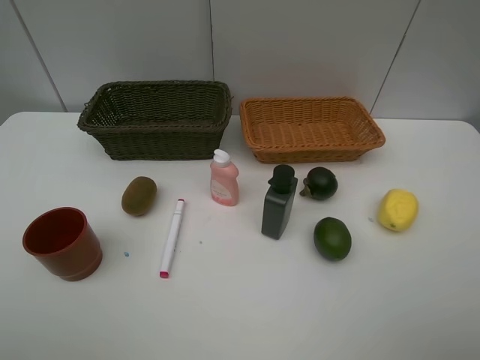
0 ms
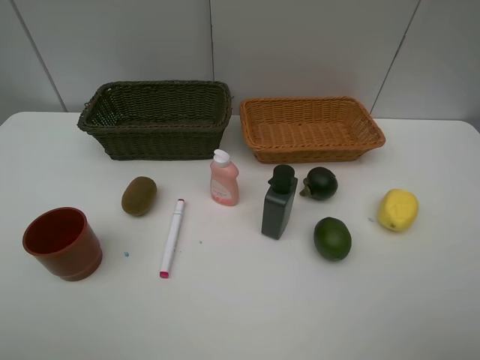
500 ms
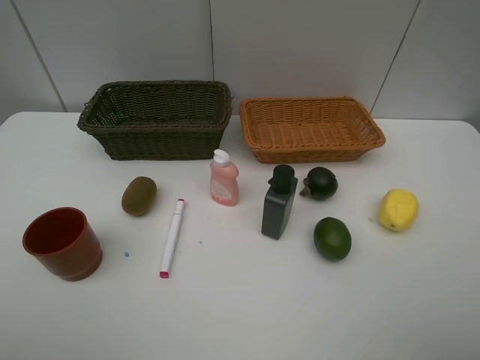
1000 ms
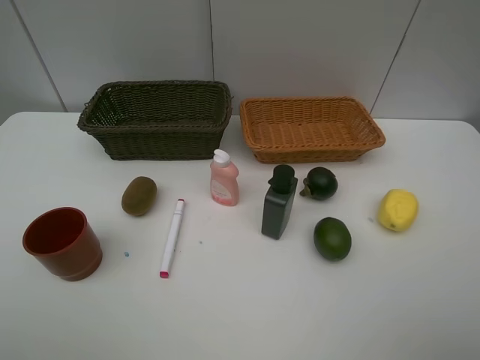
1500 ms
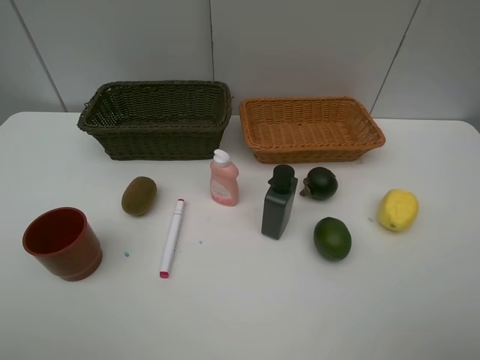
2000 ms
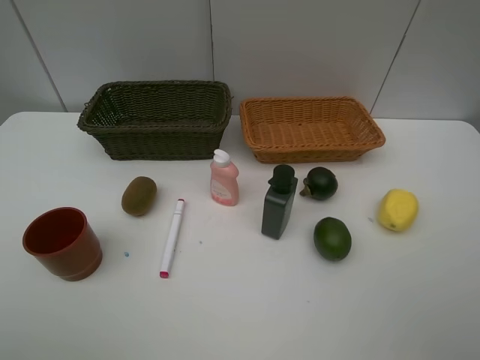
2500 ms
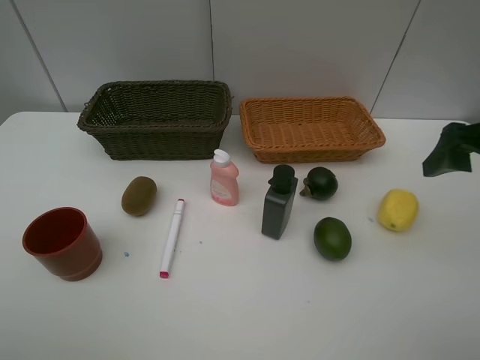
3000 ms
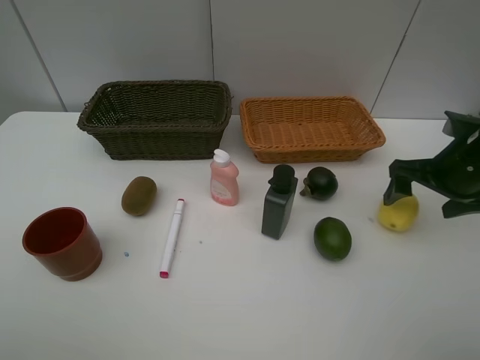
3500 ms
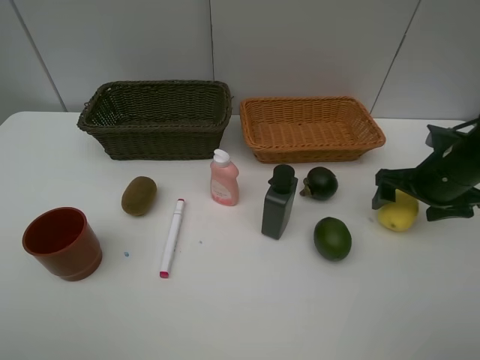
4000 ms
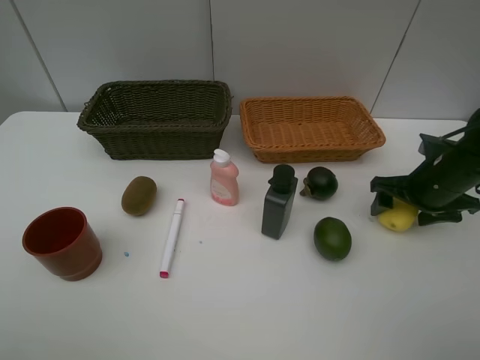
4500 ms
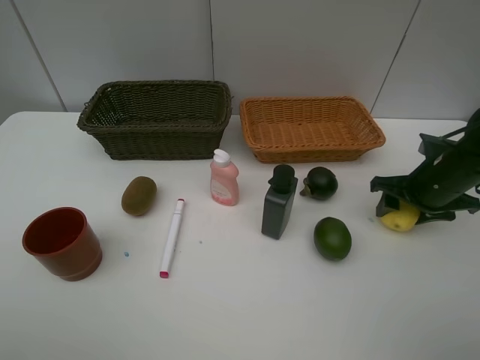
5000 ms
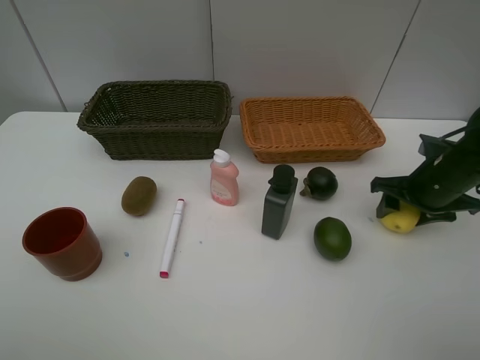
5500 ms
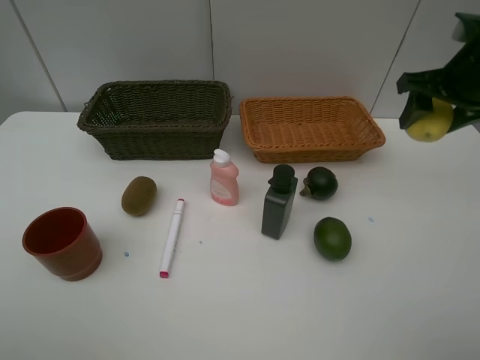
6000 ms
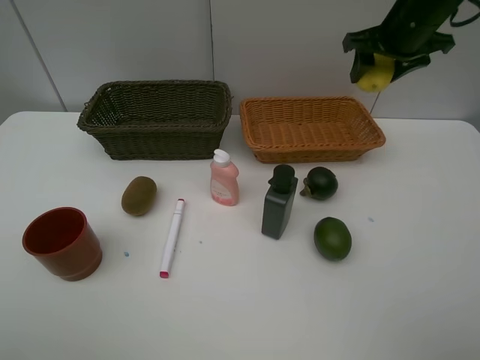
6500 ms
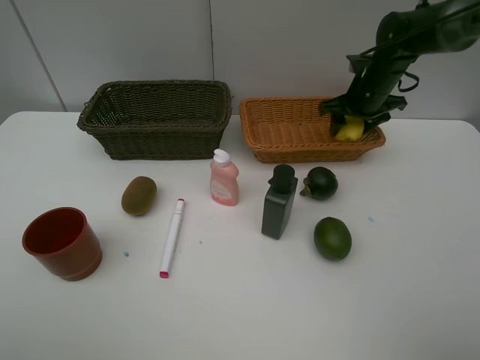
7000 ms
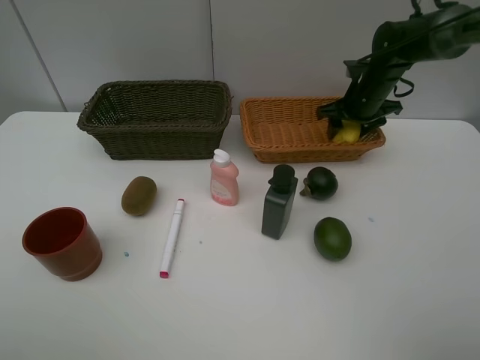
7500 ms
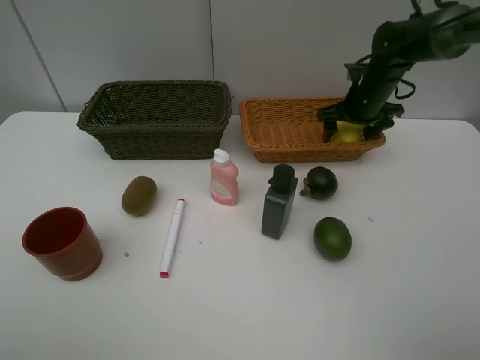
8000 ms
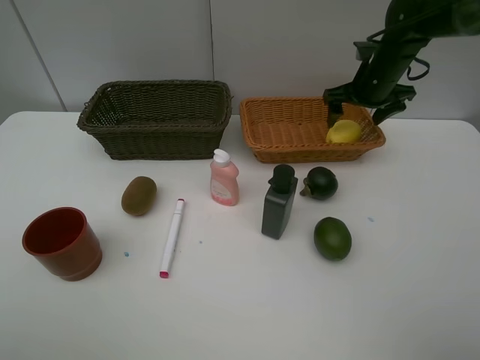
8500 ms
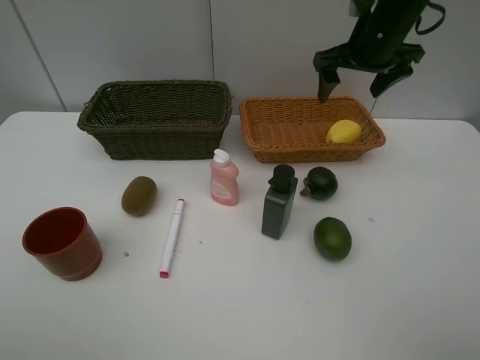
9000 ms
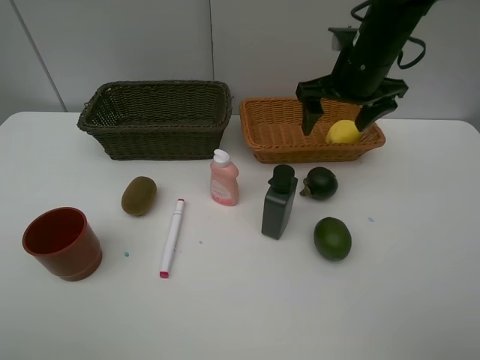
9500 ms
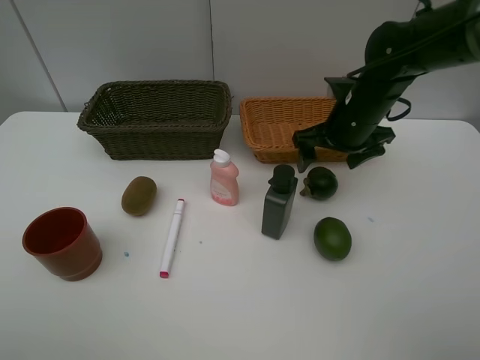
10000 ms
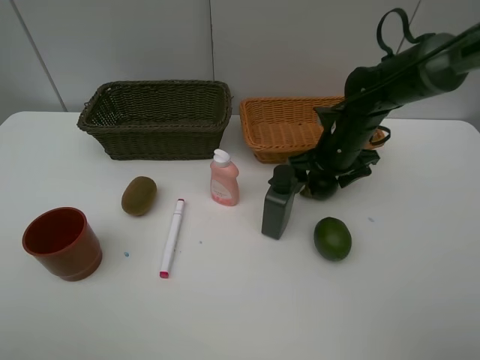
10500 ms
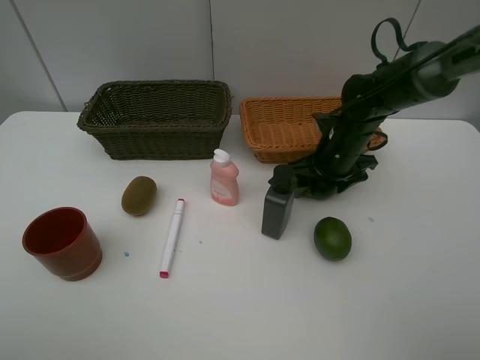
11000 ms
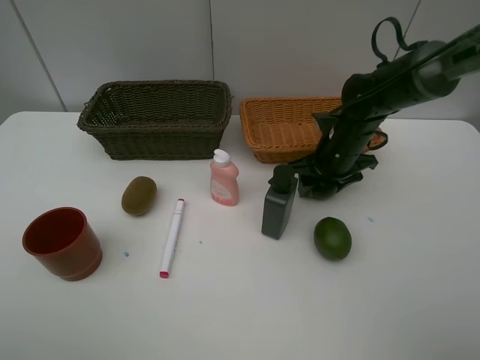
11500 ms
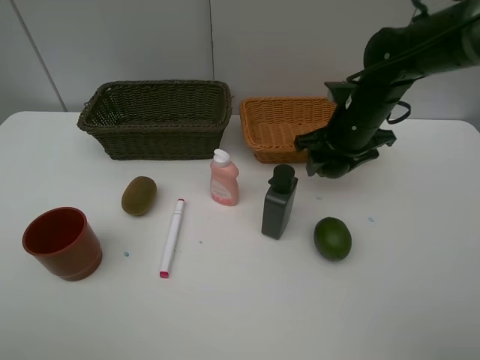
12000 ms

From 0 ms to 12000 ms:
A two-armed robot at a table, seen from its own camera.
Task of the whole recording: Place multiple objects separately in different baskets.
Step, from 0 ms to 5500 ms: Pick up the lemon with right gripper.
Step, from 6000 ms to 8500 ms: Place the lemon in the light basket with right gripper.
Step, from 9000 ms to 11500 ms: Pick up the mangosteen with right gripper.
From 0 ms to 2000 ms: The two grippers keep their place.
From 2000 ms to 4000 ms: The right gripper is displaced forward and downward by approximately 35 cm.
From 4000 ms to 6000 ms: The right gripper travels upward by about 15 cm, and closes.
From 6000 ms to 8000 ms: The right gripper shifts some 20 cm forward and downward, and opens its fingers.
From 8000 ms to 10000 ms: The right gripper heads backward and to the left, covering about 15 cm, and reaches approximately 15 cm upward, then returns.
From 10000 ms to 12000 ms: The right gripper travels downward and back again, roughly 5 cm each way, and closes its fingers.

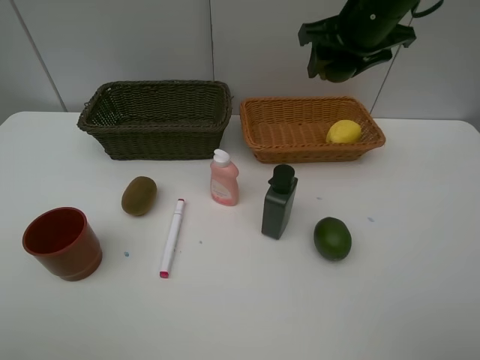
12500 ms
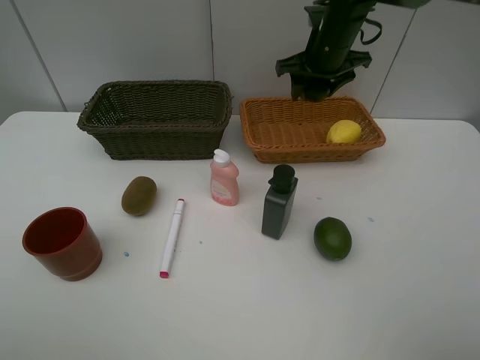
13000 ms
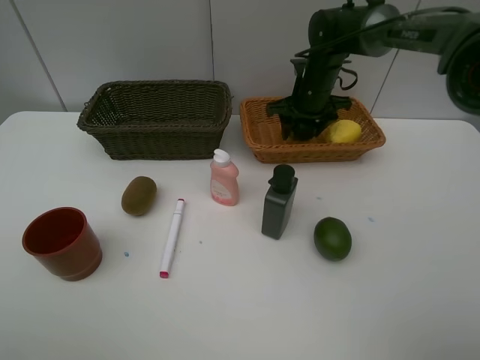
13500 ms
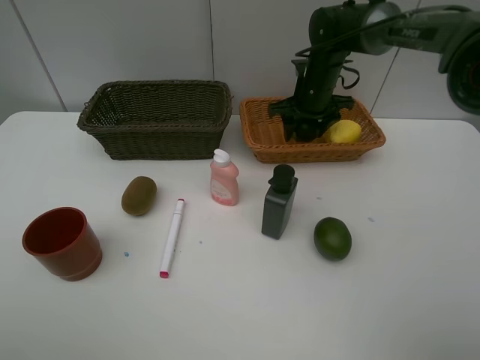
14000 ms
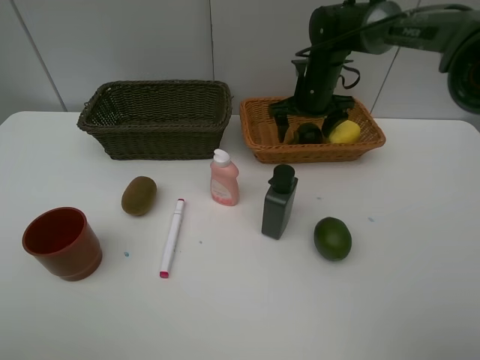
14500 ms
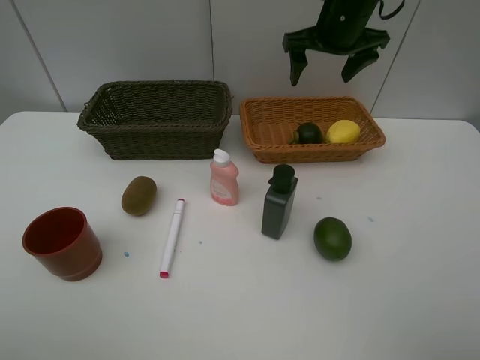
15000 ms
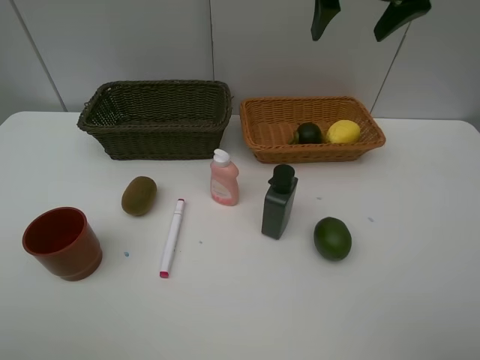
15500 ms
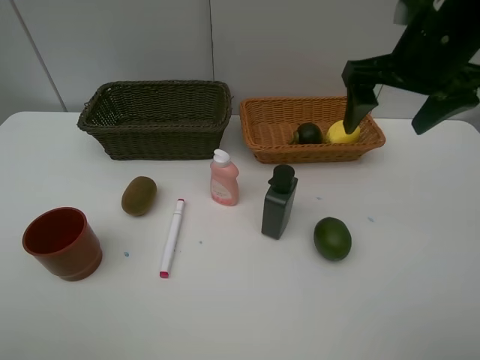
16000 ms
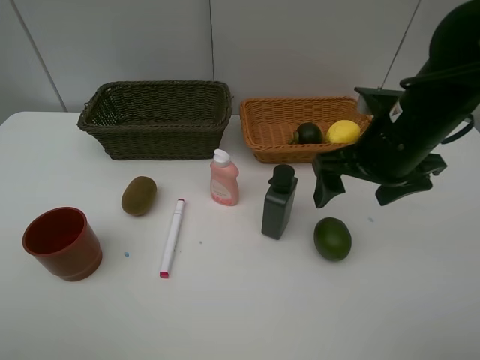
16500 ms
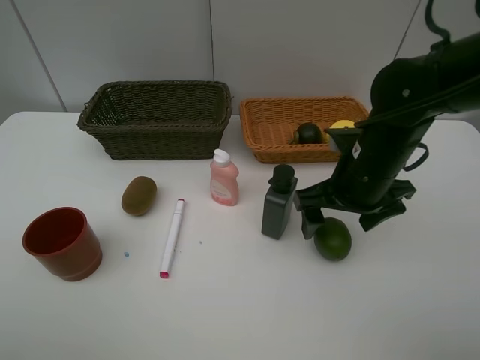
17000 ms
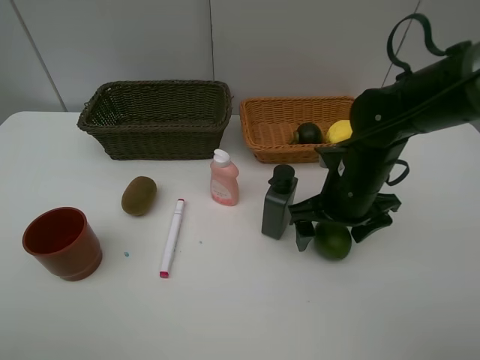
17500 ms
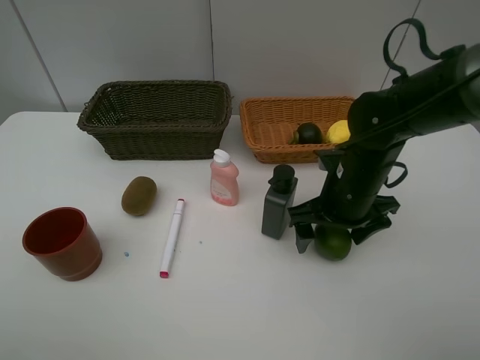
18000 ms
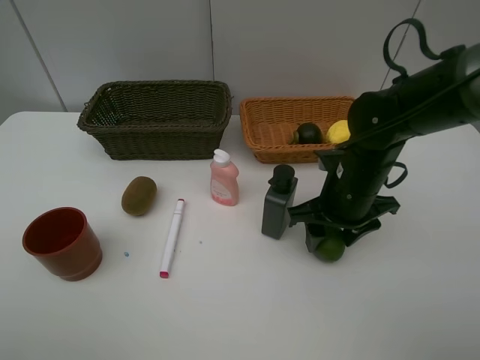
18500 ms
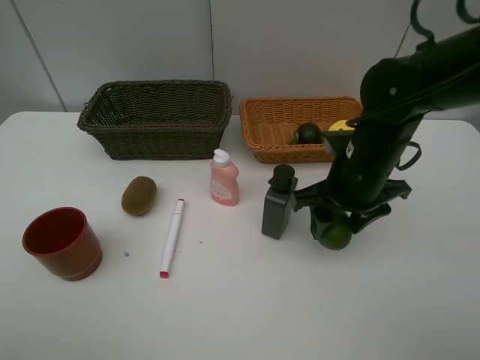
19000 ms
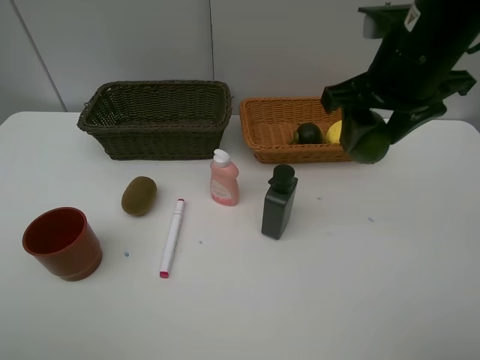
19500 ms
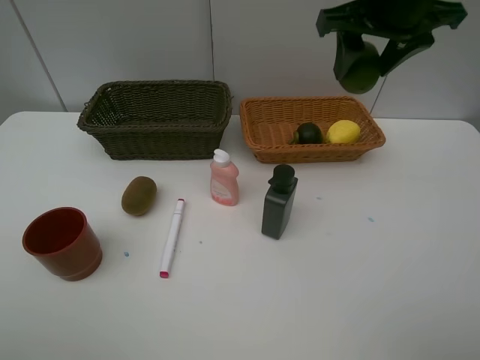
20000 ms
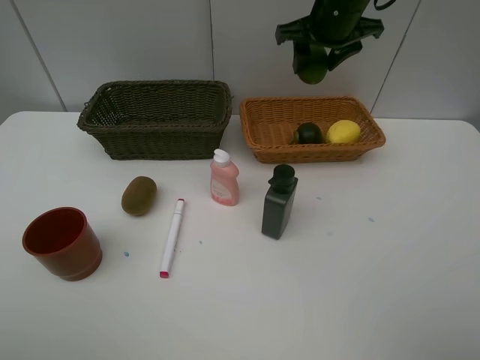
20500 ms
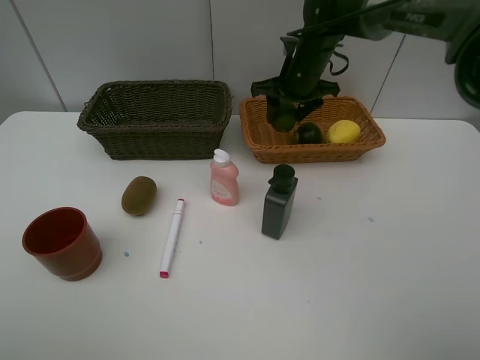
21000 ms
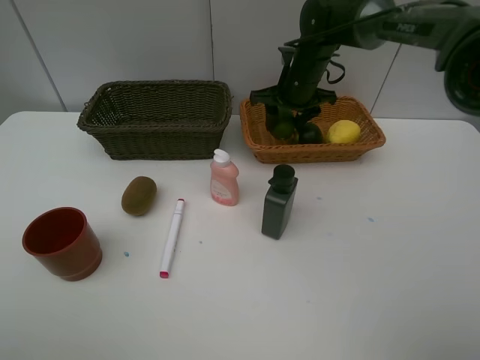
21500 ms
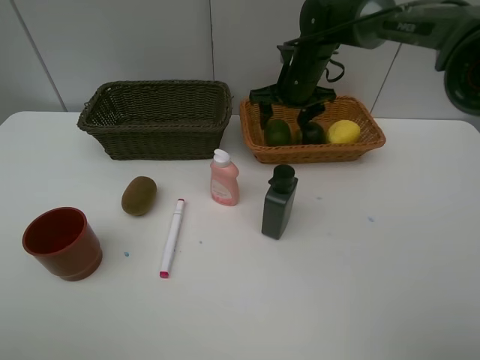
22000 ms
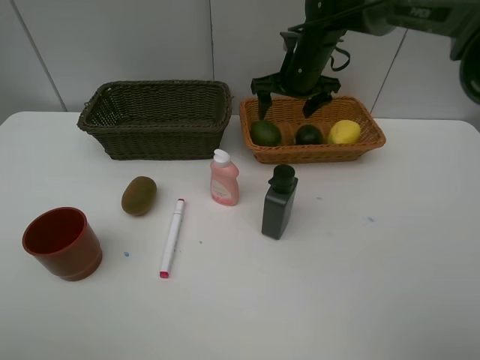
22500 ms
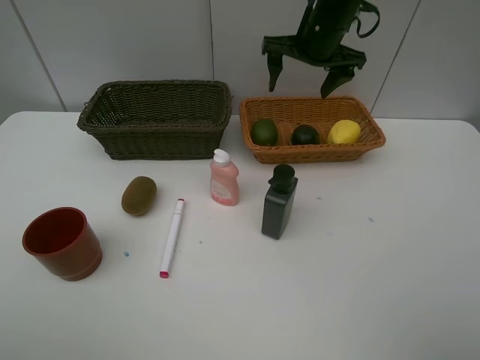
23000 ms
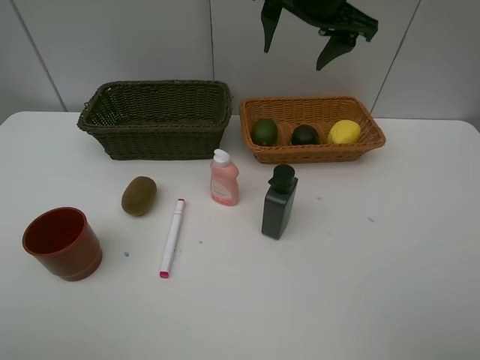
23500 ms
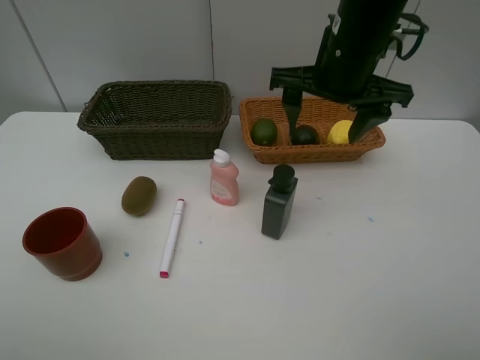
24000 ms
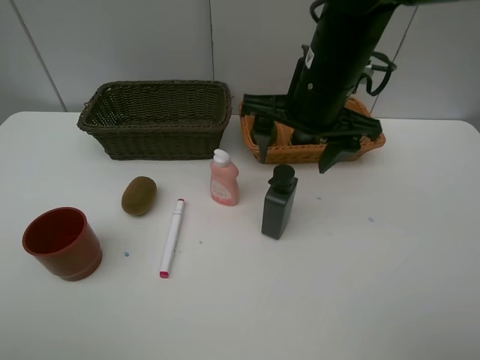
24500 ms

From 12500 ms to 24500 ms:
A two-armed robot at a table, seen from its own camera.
Task of the whole recording: Place multiple objects separately in different baskets.
Step, from 12500 ms to 14500 ms: Place the mangosteen in the light basket with right gripper.
Step, from 15000 ms to 18500 ms: Pick up the lime with right gripper.
Step, from 19000 ms to 22500 ms: Place the lime in the light basket with right gripper.
From 12500 ms to 14500 ms: The right gripper moves downward and forward, some 15 cm, and opens.
From 14500 ms to 16500 ms: The right gripper shifts approximately 25 cm backward.
From 16500 ms to 18500 ms: The right gripper heads downward, covering roughly 10 cm, and closes its fingers.
From 18500 ms to 20500 ms: The right gripper shifts some 25 cm forward and upward.
From 20500 ms to 22500 ms: The right gripper heads downward, covering approximately 10 cm, and opens up.
From 22500 ms to 24500 ms: The right gripper heads backward, covering approximately 20 cm.

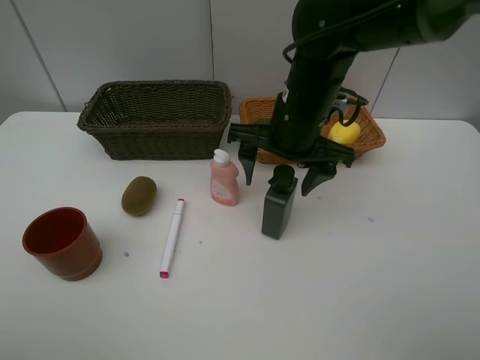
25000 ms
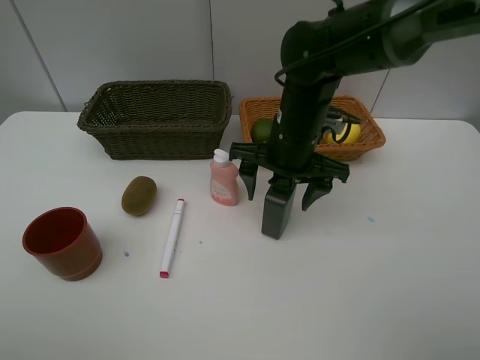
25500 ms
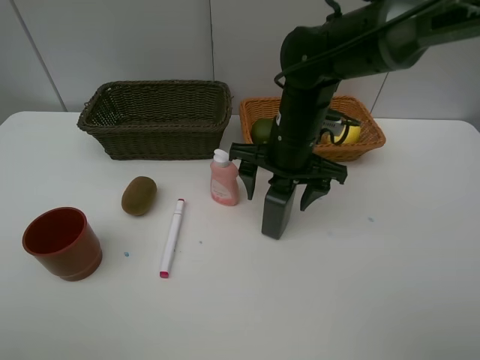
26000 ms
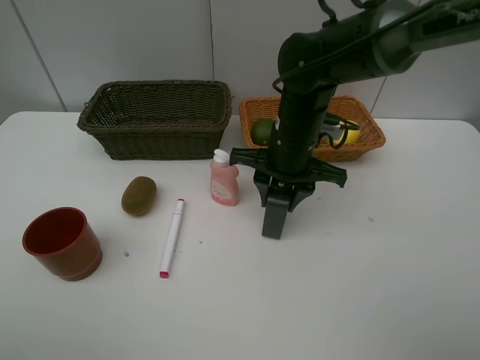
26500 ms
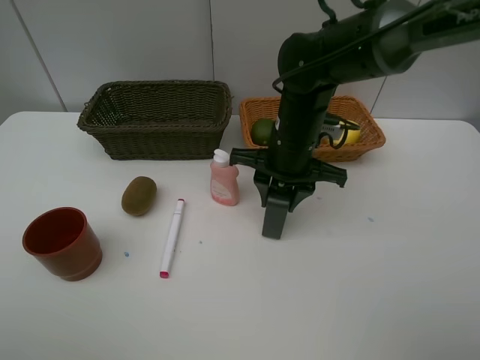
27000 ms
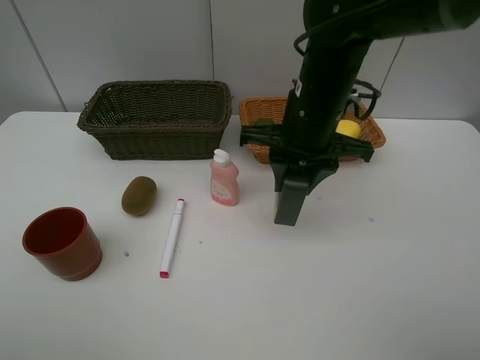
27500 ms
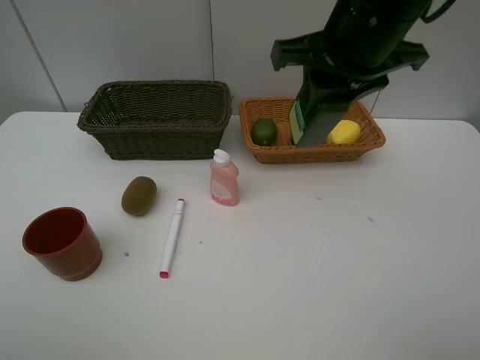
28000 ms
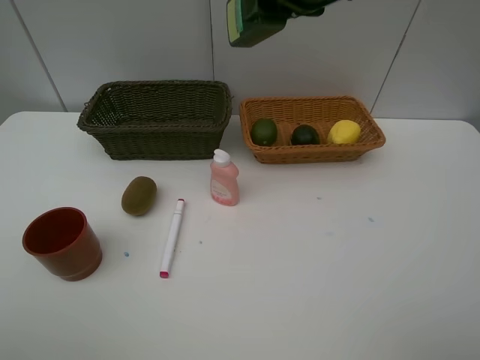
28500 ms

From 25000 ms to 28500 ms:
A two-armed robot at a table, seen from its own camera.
Task of the whole recording: Place multiple objects separately in different baskets.
Step, from 25000 ms to 27500 ms: Pick up the hard facial cleanser with right gripper.
From 25000 ms to 27000 ms: The right gripper closes its fingers.
From 27000 ms to 28500 ms: The right gripper moves upward, about 20 cm.
